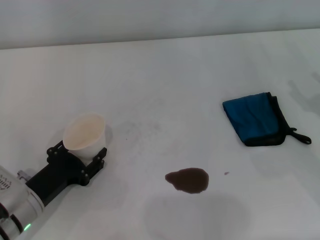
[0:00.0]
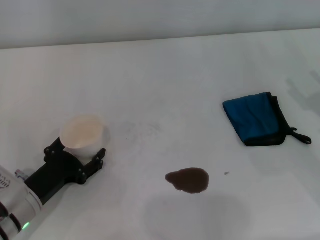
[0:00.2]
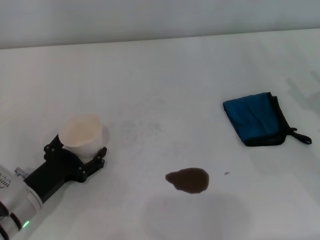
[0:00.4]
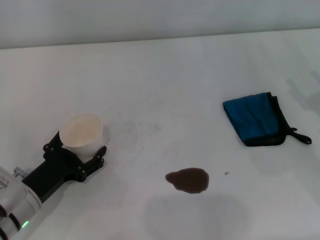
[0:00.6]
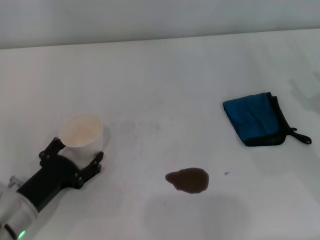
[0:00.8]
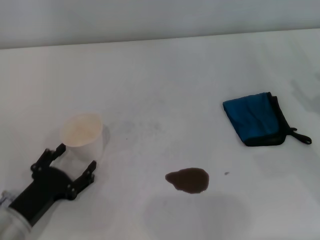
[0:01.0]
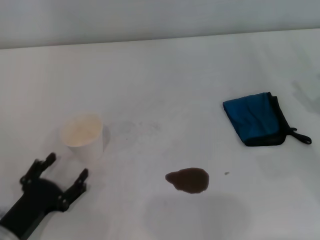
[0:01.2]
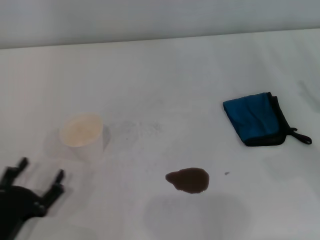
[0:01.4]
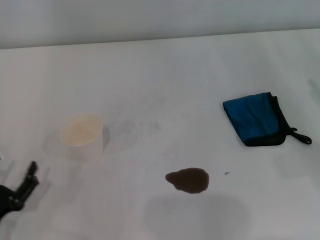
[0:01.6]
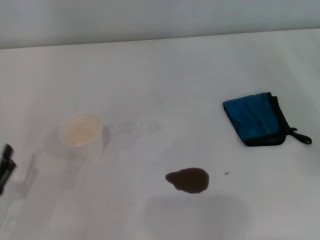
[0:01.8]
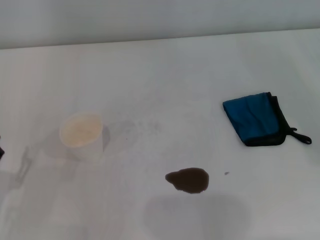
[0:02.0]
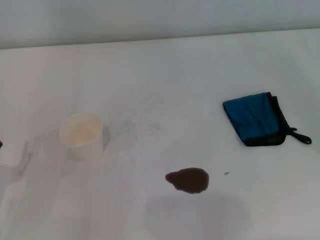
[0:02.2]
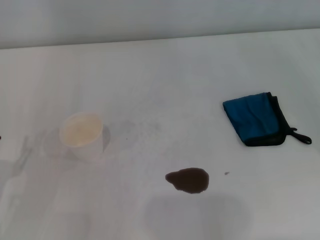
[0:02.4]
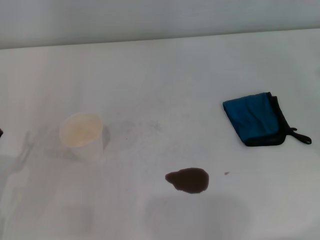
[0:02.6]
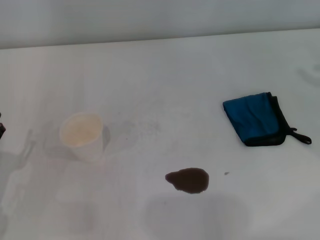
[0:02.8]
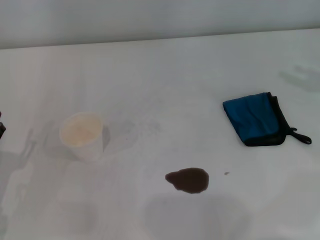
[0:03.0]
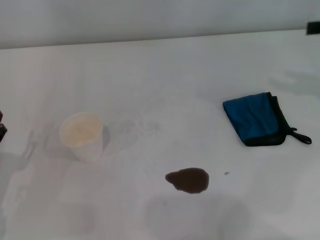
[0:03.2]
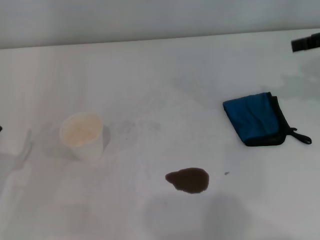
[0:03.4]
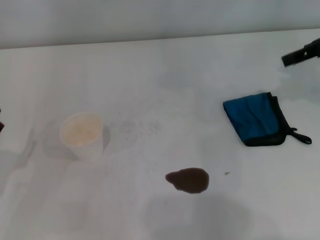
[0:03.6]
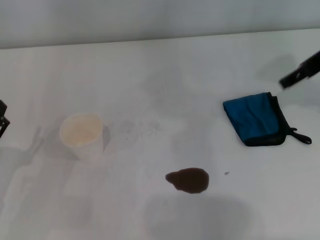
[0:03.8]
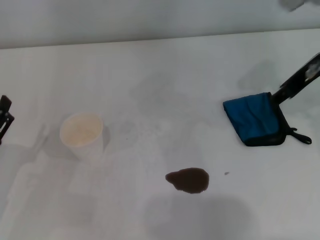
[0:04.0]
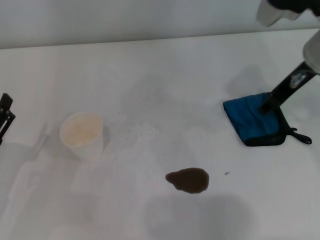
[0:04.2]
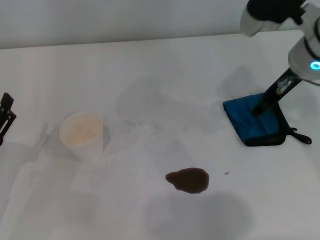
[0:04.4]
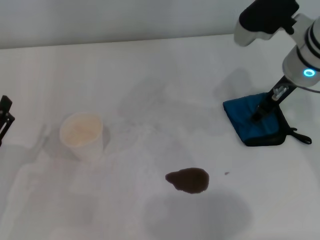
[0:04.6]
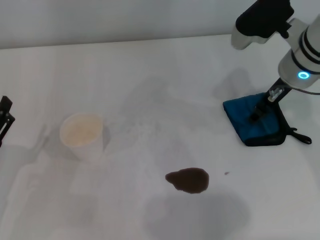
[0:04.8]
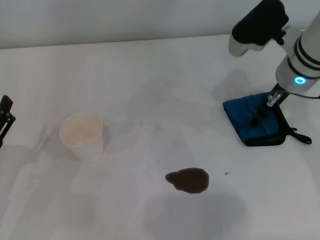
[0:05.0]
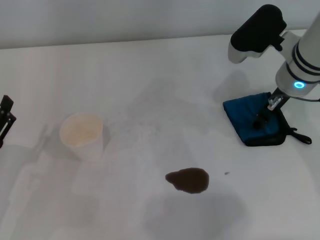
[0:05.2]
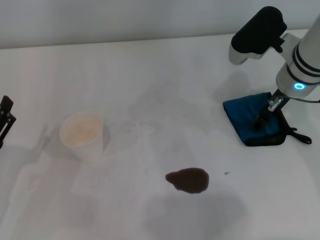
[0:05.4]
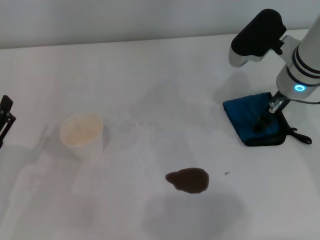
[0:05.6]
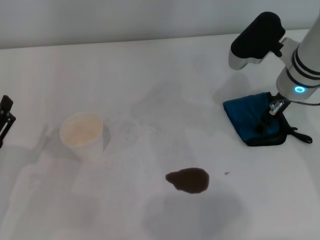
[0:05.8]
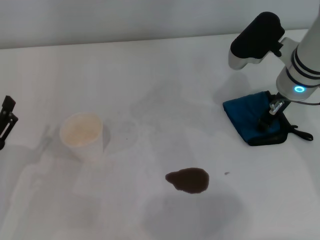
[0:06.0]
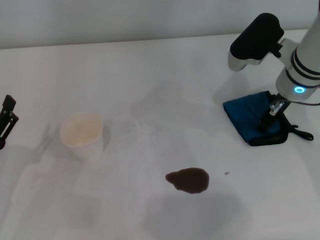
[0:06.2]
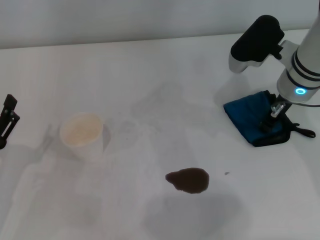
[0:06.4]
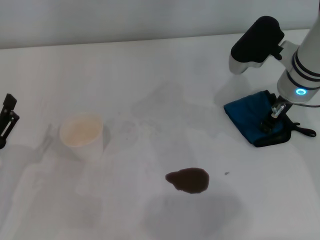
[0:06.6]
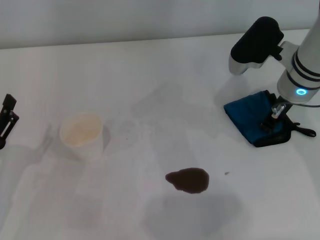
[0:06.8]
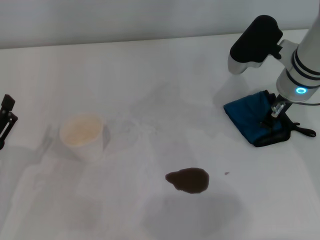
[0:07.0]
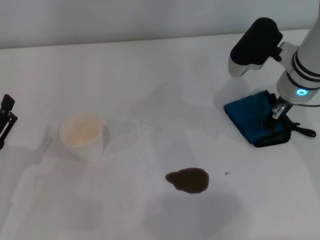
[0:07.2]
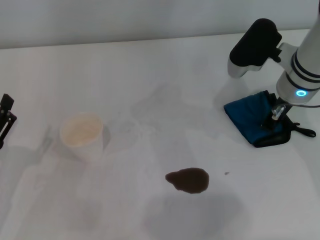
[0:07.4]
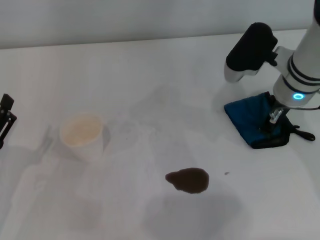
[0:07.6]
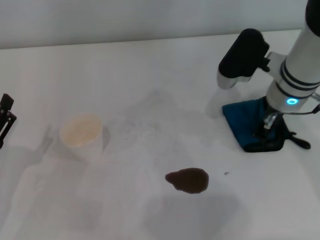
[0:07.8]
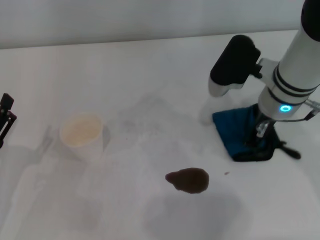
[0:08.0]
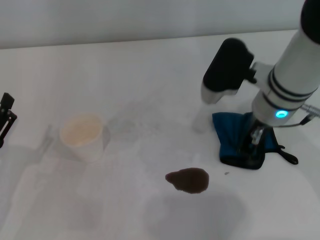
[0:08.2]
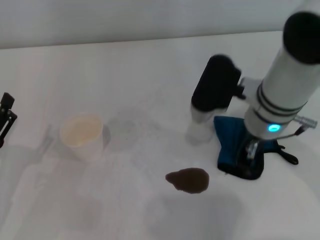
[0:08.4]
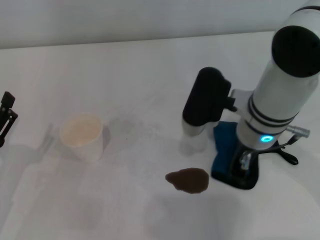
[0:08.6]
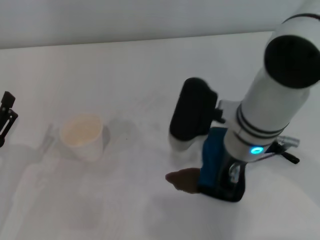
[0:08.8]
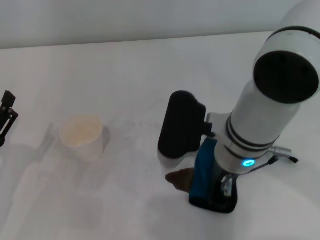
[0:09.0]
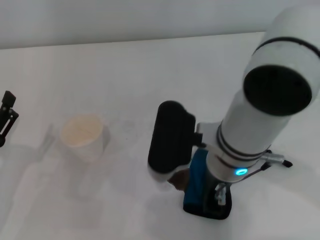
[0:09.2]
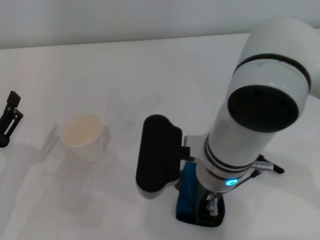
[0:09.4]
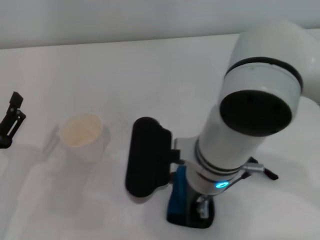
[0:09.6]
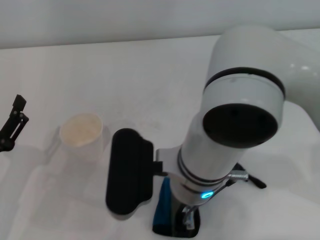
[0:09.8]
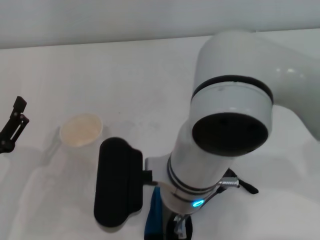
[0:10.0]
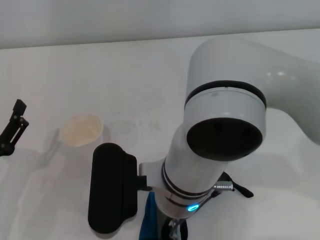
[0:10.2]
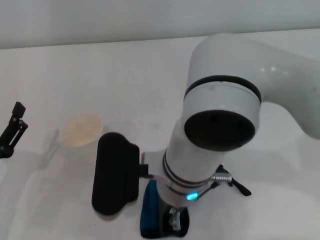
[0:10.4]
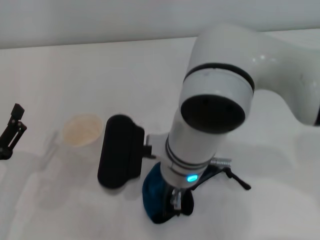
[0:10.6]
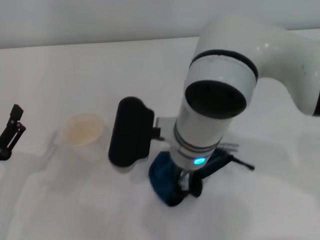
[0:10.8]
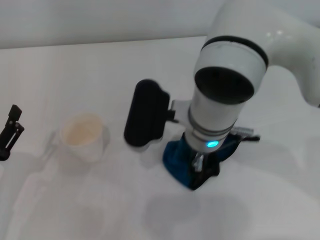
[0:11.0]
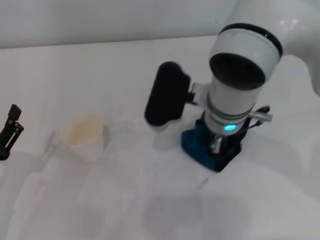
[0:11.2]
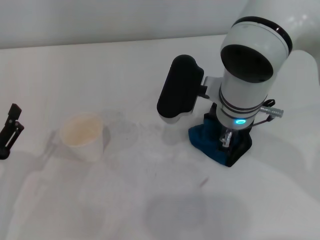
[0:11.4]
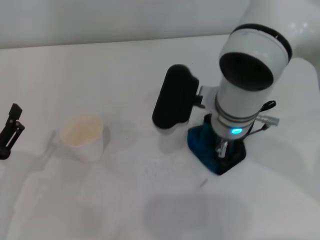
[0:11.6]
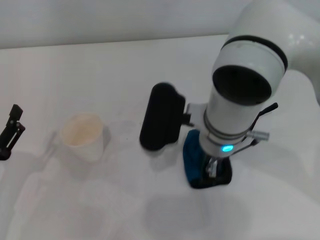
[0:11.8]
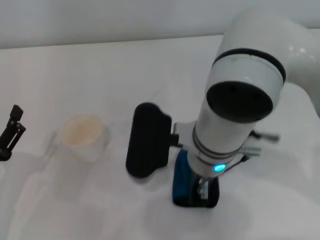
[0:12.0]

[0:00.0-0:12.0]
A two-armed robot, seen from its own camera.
Step, 0:00.6 to 0:06.2: Grasp the rag with the right gripper.
0:00.0 to 0:01.6: The left gripper is displaced backward and to the left by about 10 cm, and opens up.
0:01.6 to 0:03.0: The left gripper goes about 5 cm forward.
0:03.0 to 0:04.4: The right gripper is displaced to the left by some 20 cm.
0:04.4 to 0:06.0: The right gripper travels downward by approximately 5 cm.
0:06.0 to 0:07.6: The right gripper closes its fingers.
0:07.6 to 0:09.0: The right gripper goes some 15 cm to the left and backward.
0:09.0 to 0:10.4: The right gripper goes approximately 10 cm to the left.

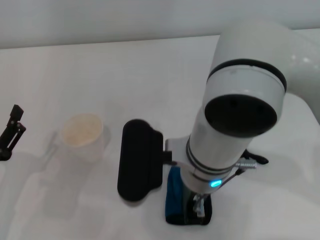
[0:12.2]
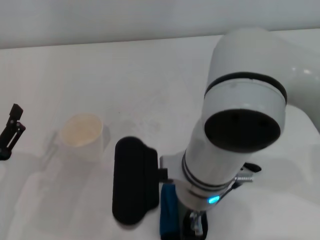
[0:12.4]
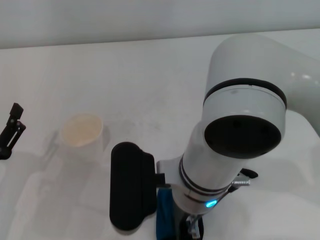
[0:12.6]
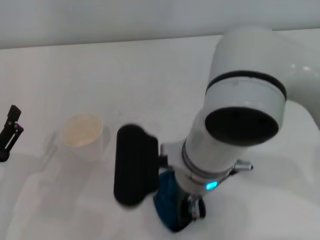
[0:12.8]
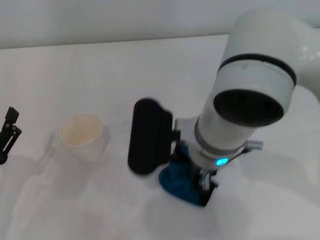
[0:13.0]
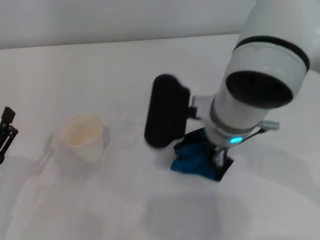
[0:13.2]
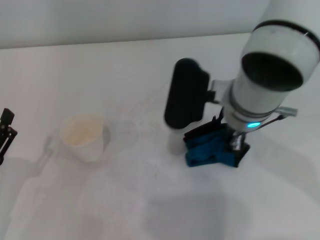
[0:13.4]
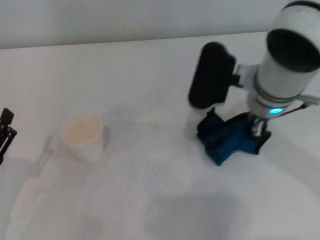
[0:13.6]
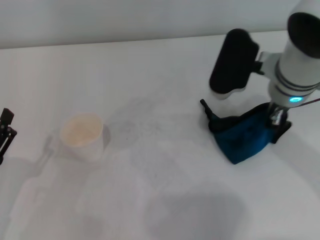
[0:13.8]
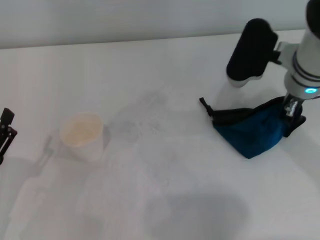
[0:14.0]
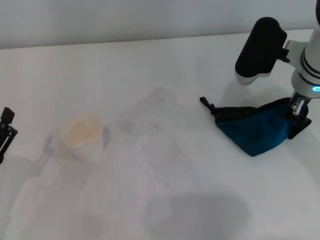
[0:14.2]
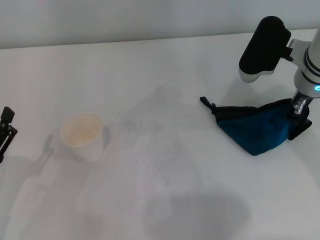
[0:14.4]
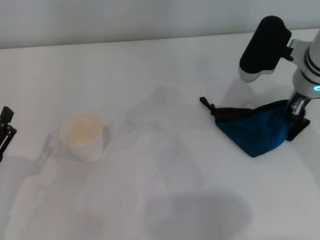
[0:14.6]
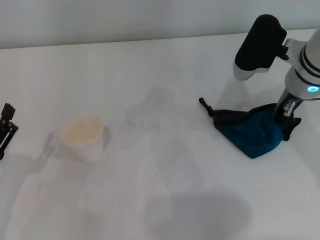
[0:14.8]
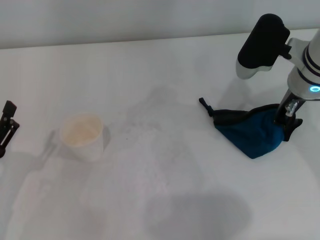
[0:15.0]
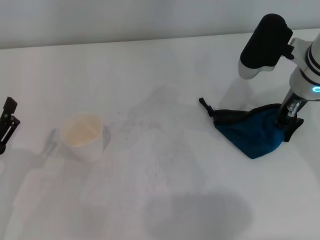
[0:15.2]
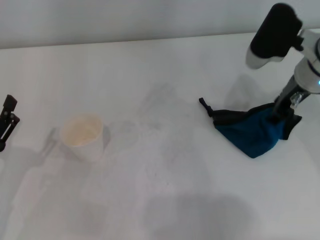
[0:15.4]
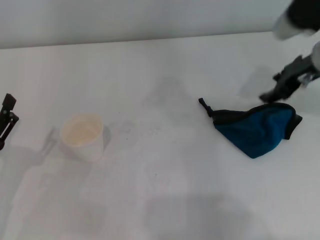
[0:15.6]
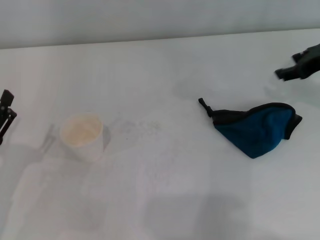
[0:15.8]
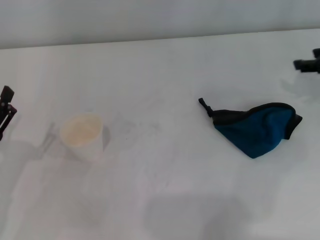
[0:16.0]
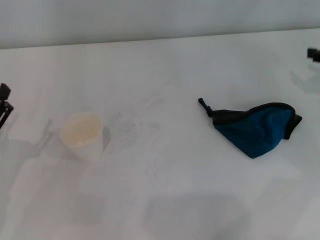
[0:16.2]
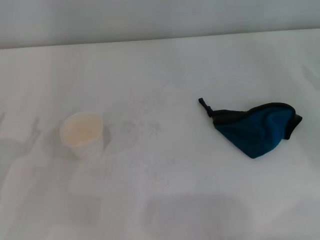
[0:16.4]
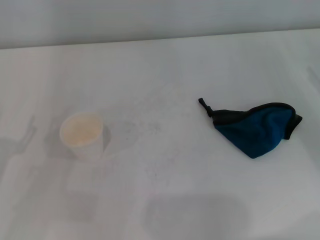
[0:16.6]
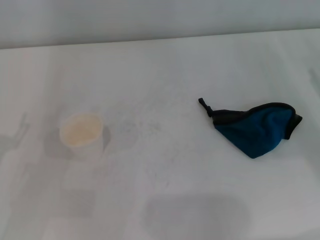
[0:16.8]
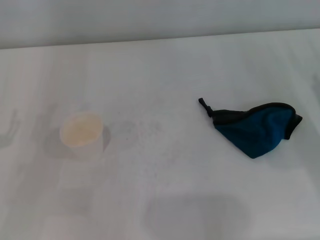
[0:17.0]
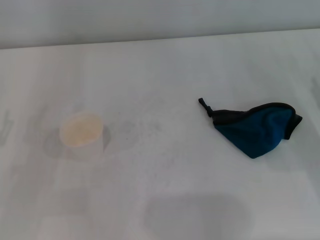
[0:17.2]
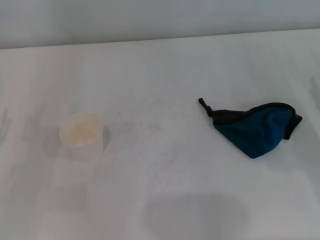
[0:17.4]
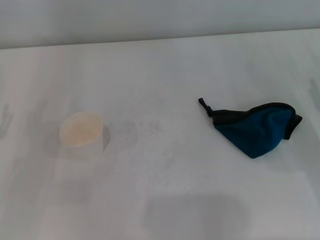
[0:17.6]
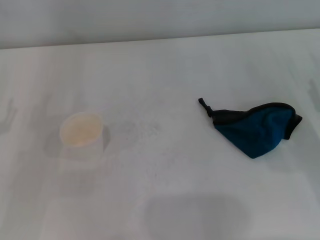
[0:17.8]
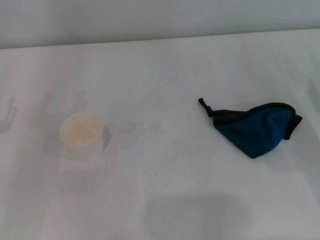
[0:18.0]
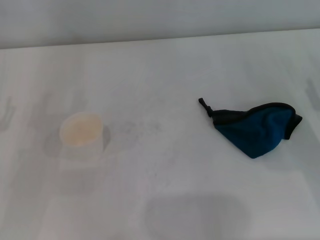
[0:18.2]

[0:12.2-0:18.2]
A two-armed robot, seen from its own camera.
Step, 0:13.2 to 0:15.4: Place the rag on the table with the right gripper.
0:12.2 to 0:13.8: The right gripper goes roughly 15 cm to the right and forward.
0:13.8 to 0:15.2: The right gripper moves to the right, roughly 5 cm.
0:15.2 to 0:16.6: The right gripper travels to the right and backward by approximately 20 cm, and opens.

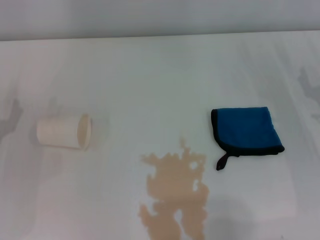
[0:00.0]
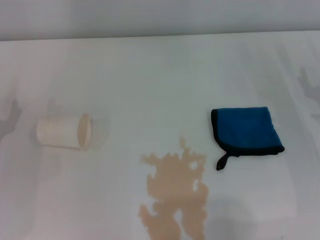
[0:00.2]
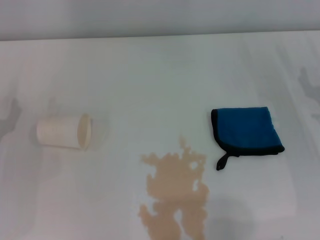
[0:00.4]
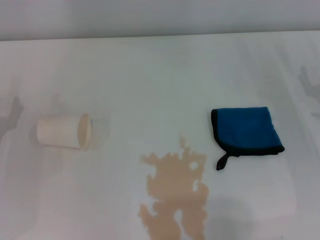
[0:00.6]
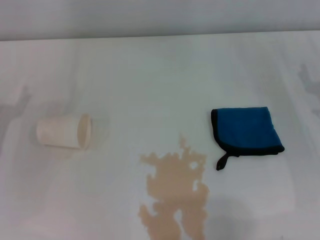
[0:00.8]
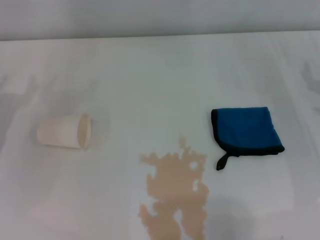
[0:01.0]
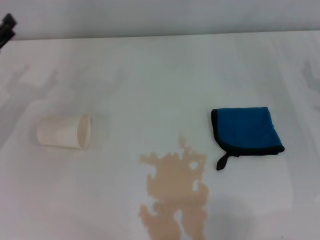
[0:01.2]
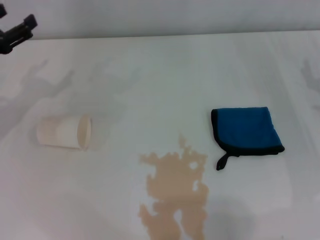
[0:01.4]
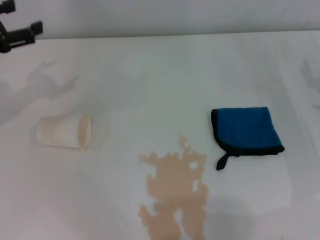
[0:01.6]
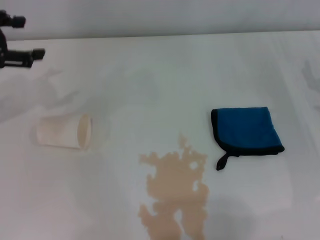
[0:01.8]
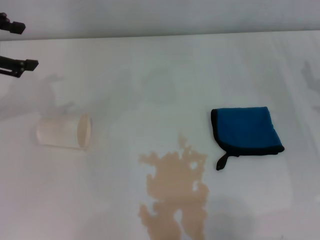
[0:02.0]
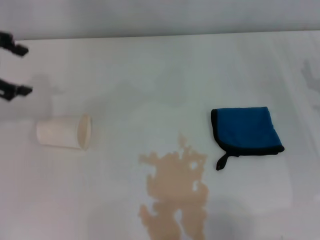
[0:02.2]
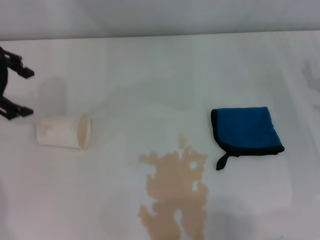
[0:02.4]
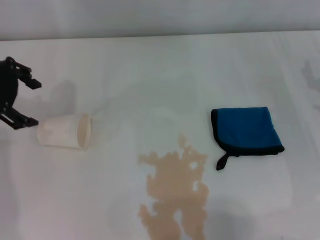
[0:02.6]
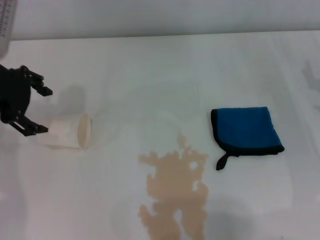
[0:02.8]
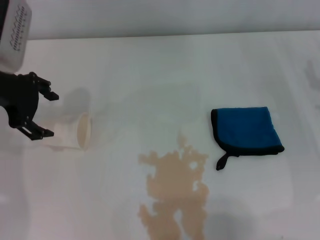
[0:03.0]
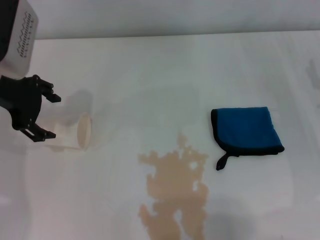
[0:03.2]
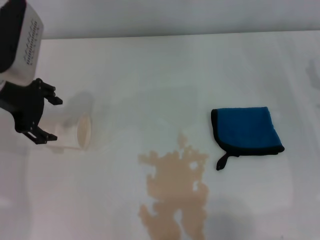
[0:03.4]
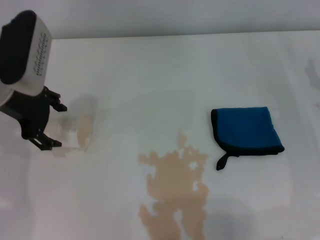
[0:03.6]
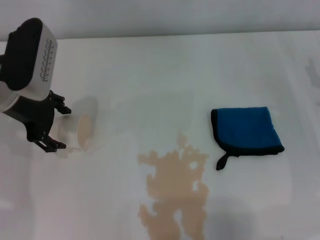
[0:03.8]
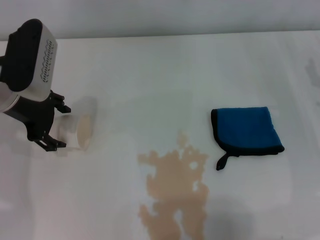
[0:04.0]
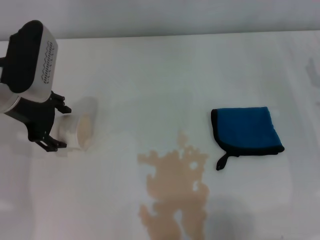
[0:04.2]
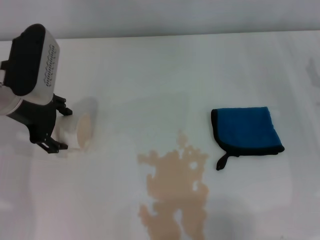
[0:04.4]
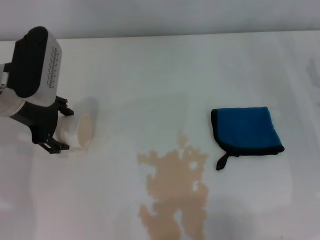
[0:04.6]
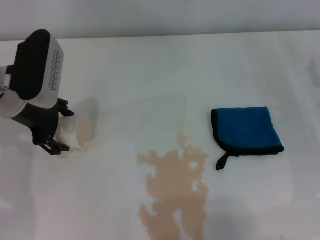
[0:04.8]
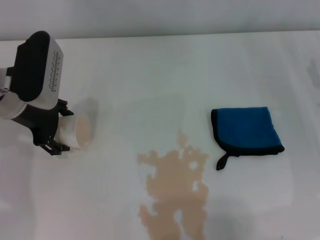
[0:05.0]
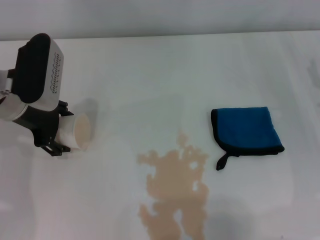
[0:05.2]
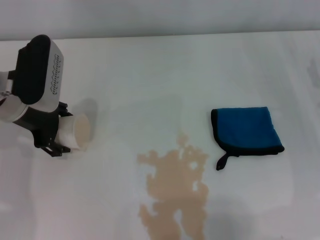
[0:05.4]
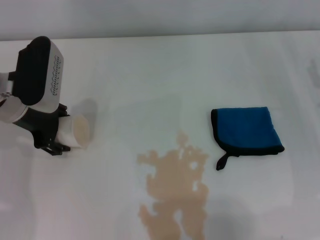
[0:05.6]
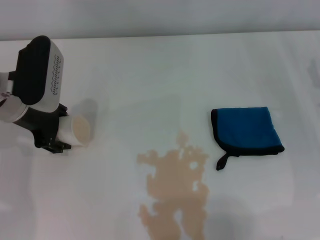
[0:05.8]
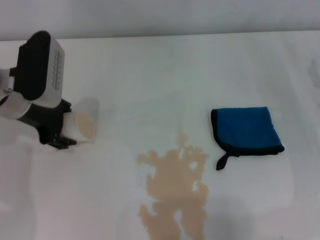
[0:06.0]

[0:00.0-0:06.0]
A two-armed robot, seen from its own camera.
Step, 0:00.0 to 0:05.8: Grasp the paper cup with the left gripper.
0:00.0 to 0:01.6: The left gripper moves upward and forward, some 20 cm.
0:01.6 to 0:03.0: The left gripper travels to the right by about 10 cm.
0:03.0 to 0:04.4: The left gripper travels downward by about 5 cm.
0:04.4 to 0:06.0: The left gripper closes.
